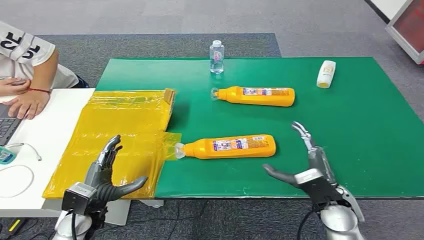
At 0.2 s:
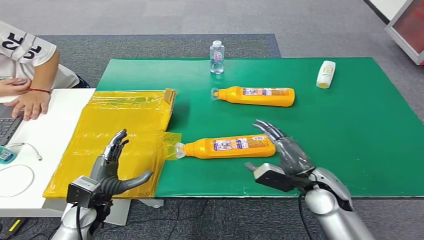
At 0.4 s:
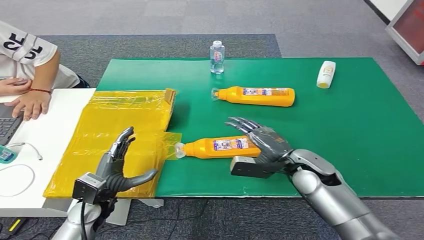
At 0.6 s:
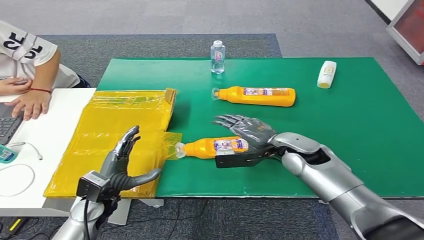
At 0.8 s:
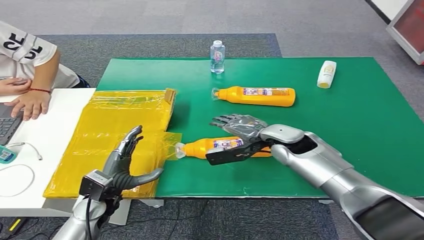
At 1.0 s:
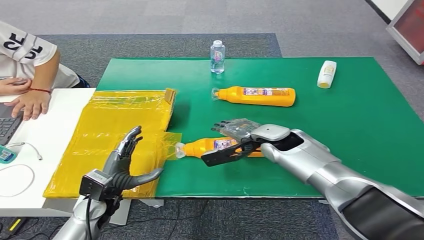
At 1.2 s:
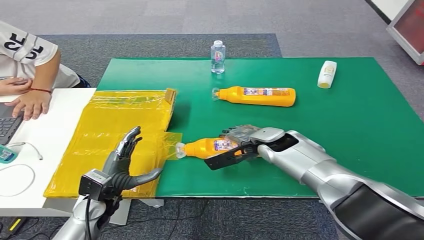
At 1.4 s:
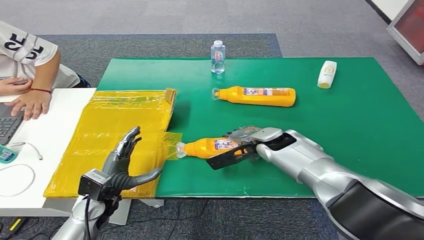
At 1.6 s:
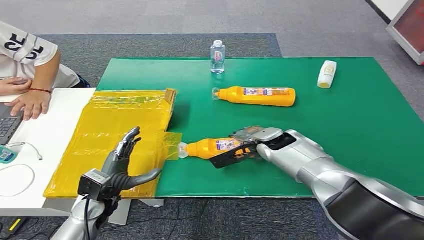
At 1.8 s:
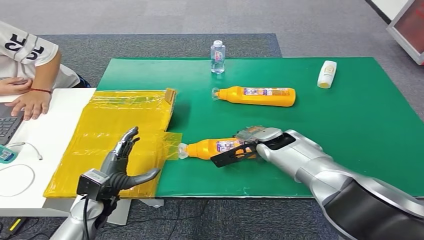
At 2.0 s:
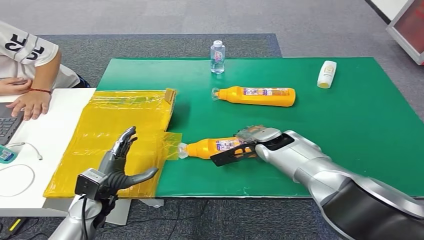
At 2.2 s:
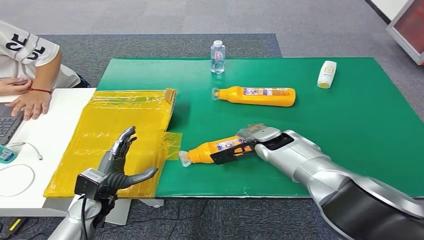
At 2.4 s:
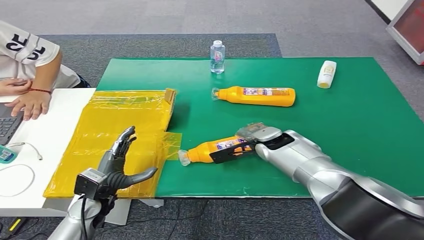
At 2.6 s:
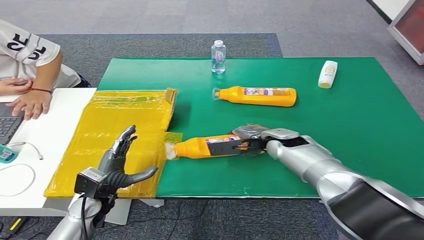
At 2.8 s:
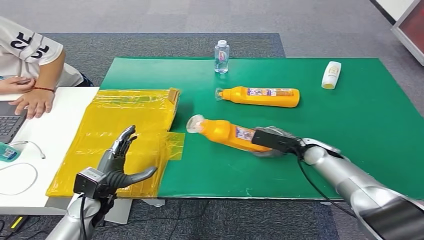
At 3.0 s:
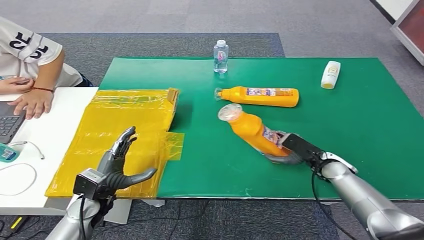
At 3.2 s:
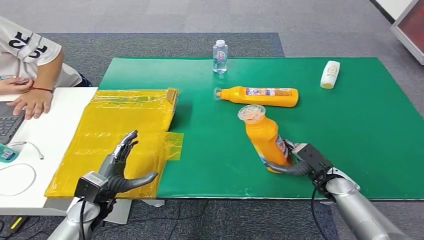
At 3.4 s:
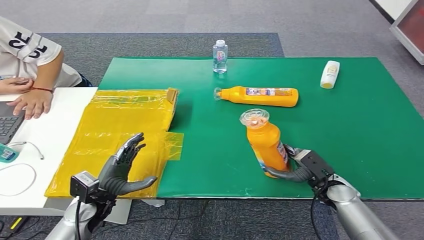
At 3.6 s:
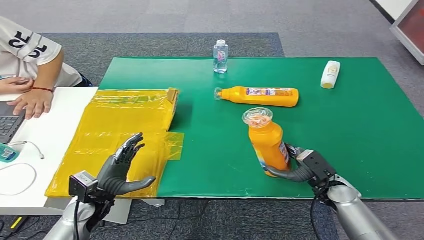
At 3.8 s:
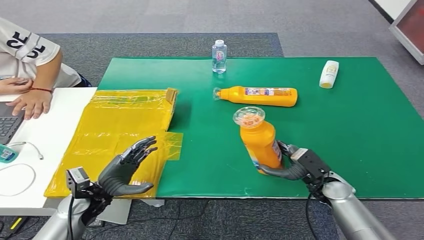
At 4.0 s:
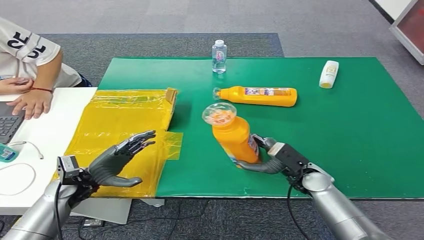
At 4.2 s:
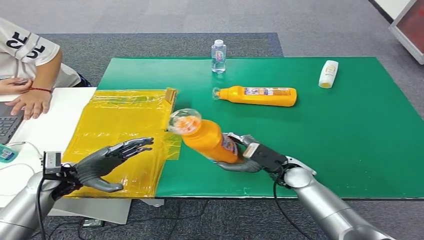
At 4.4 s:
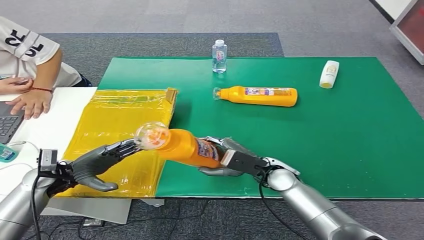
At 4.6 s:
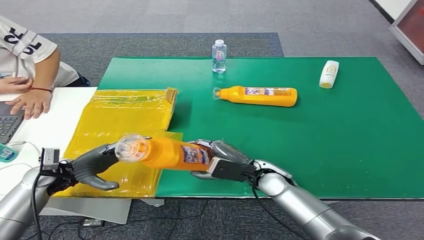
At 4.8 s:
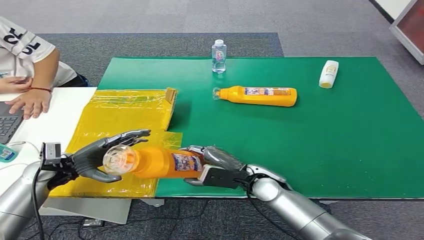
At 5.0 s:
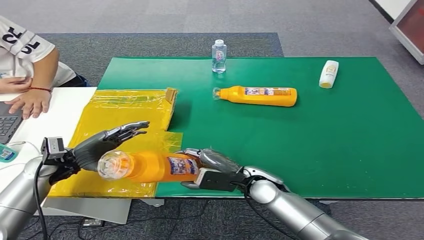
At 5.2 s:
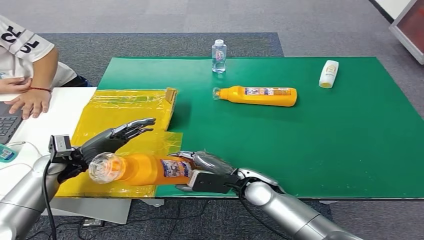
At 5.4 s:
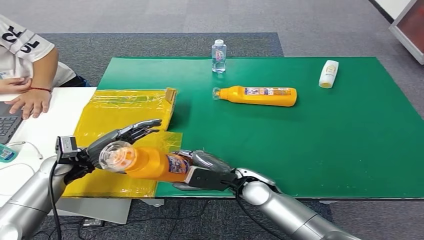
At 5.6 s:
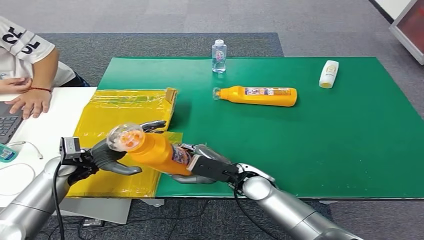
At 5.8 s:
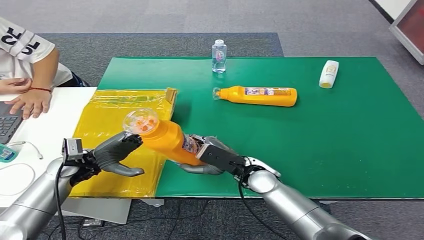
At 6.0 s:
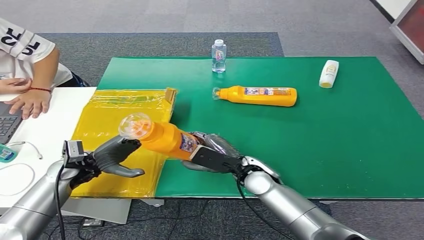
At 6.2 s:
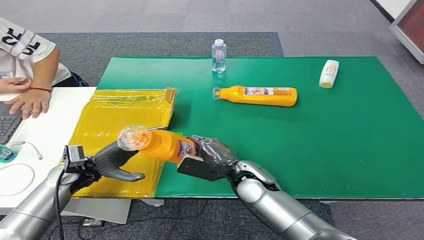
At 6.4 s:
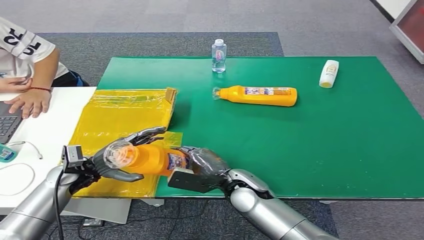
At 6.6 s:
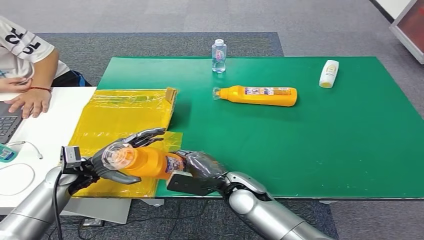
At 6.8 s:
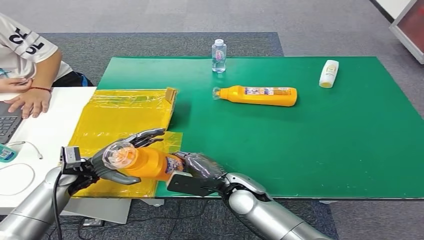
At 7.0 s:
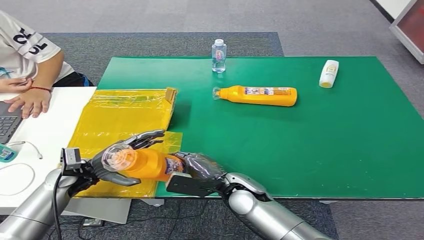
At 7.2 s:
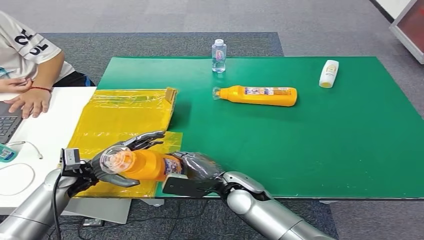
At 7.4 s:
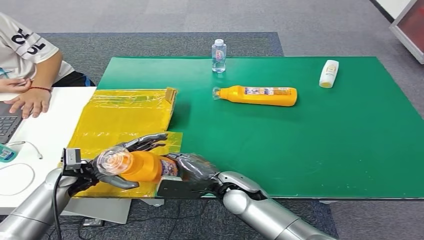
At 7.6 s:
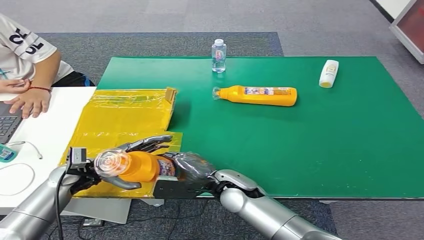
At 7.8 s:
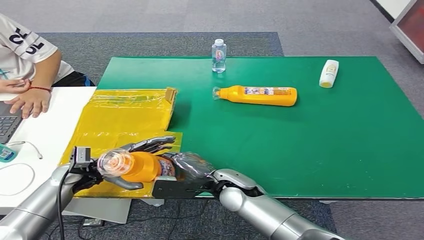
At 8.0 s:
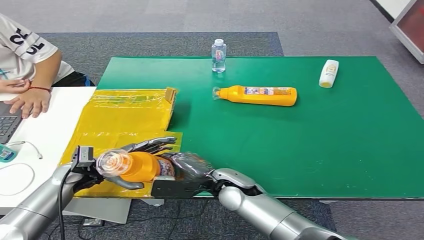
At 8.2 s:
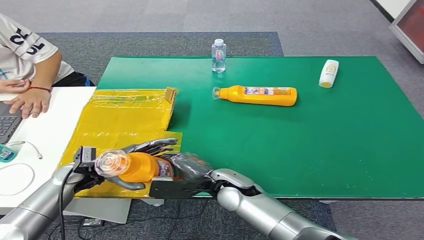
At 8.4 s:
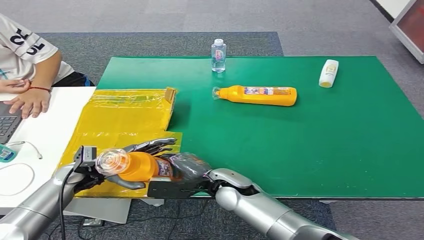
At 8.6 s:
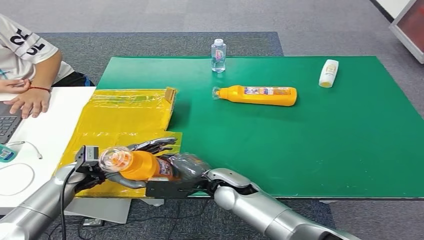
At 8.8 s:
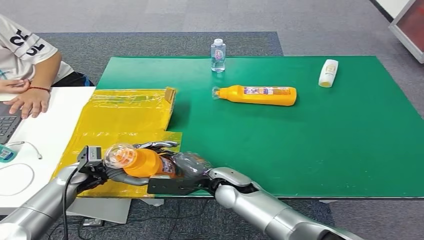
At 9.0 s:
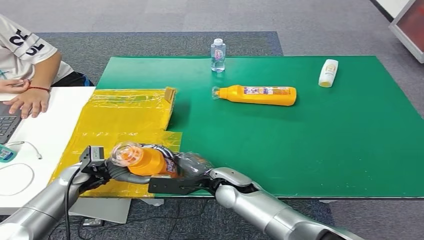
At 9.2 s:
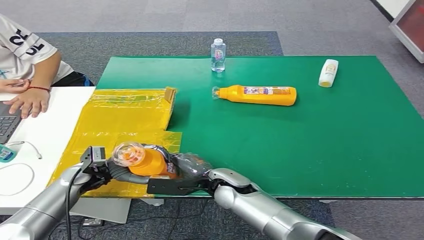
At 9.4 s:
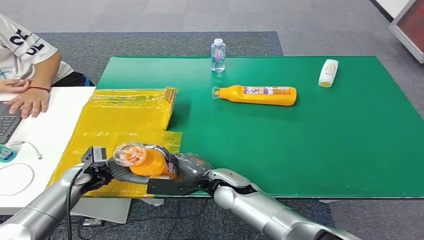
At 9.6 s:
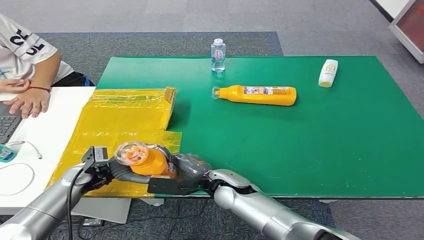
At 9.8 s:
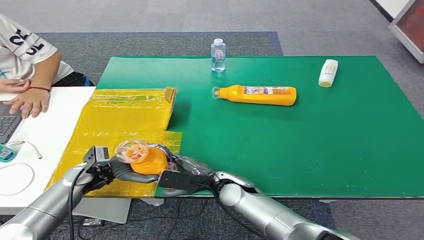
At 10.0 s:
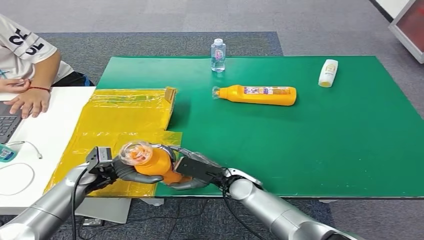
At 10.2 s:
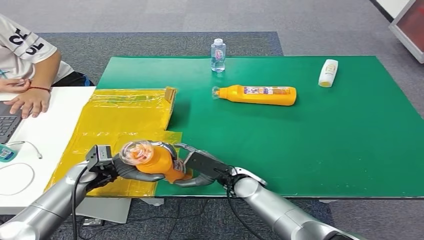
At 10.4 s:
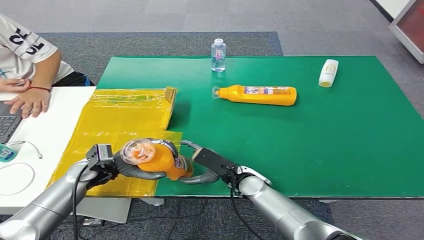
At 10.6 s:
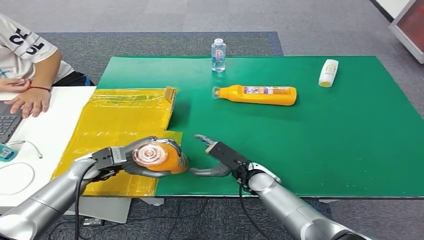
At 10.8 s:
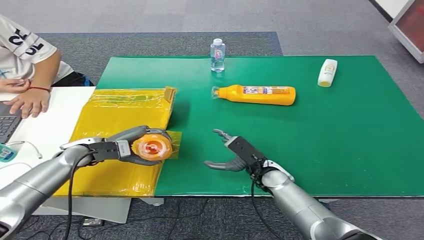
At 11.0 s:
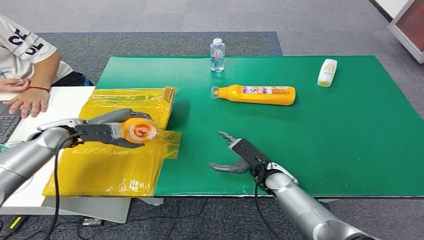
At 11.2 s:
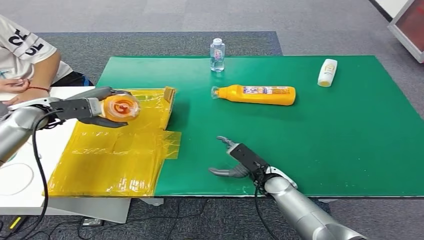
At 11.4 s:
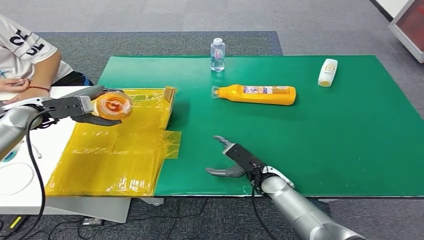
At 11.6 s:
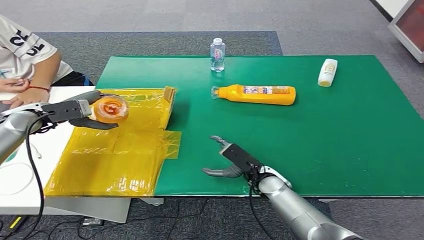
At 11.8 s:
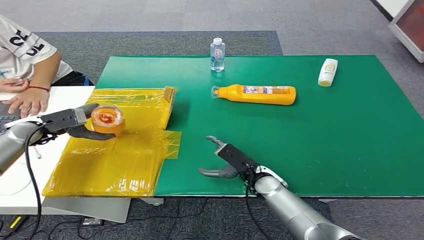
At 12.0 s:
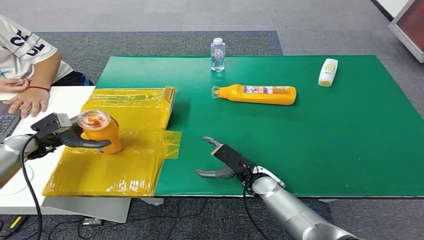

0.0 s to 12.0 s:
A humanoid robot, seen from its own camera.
Step, 0.0 to 3.8 s: Pick up the bottle from the table.
4.4 to 6.0 s: The left hand shifts by approximately 5 cm. Meanwhile the right hand travels to the left by roughly 5 cm.
6.0 to 7.6 s: The right hand shifts by roughly 5 cm.
7.6 to 9.0 s: The hands stay close to where they were, moving slightly.
9.0 to 10.4 s: The right hand travels to the right by roughly 5 cm.
10.4 to 12.0 s: The left hand moves to the left, roughly 15 cm.

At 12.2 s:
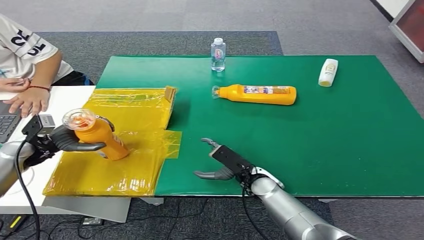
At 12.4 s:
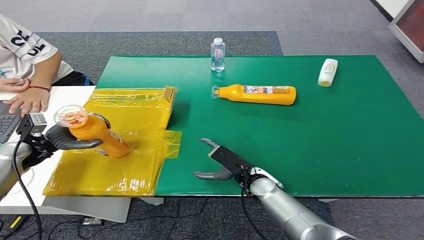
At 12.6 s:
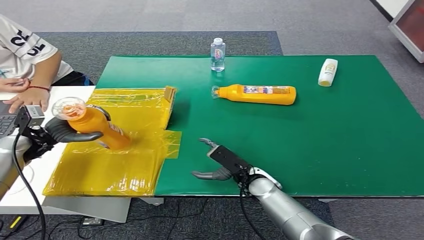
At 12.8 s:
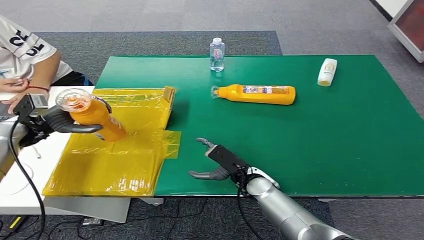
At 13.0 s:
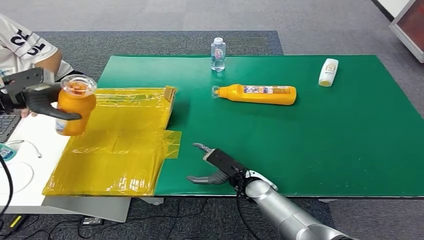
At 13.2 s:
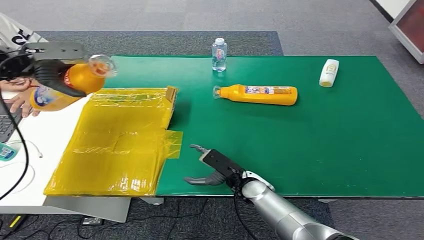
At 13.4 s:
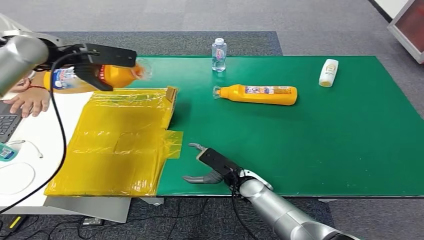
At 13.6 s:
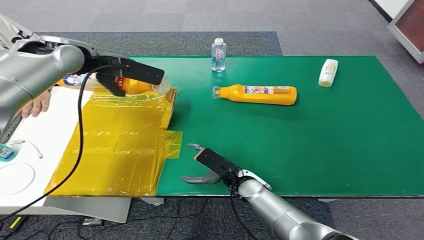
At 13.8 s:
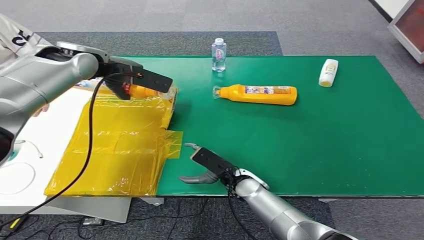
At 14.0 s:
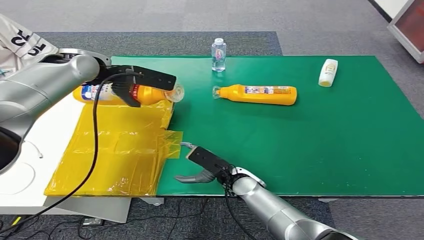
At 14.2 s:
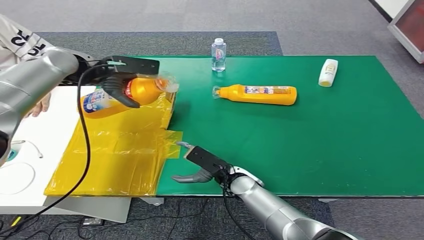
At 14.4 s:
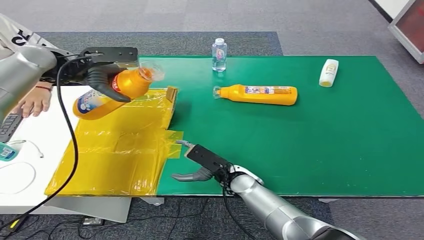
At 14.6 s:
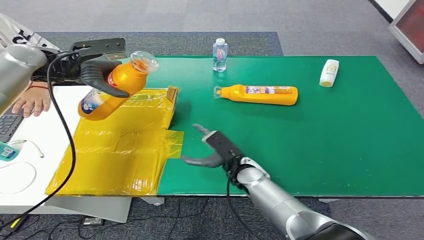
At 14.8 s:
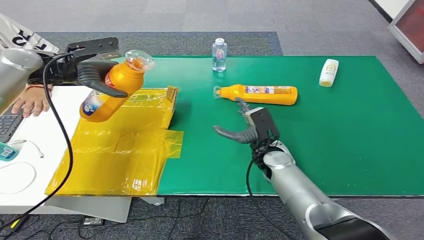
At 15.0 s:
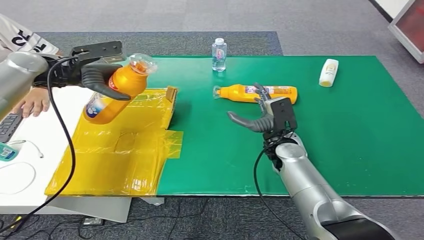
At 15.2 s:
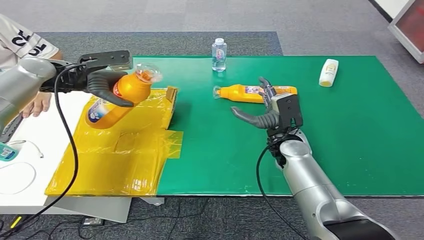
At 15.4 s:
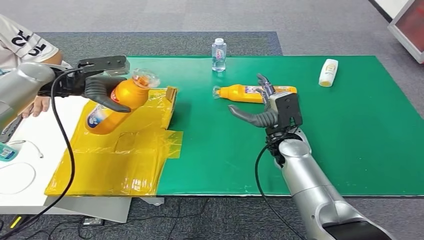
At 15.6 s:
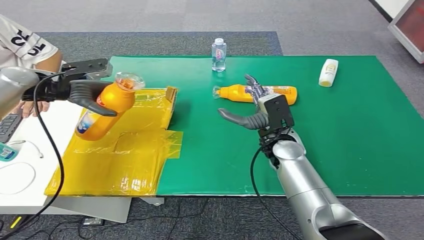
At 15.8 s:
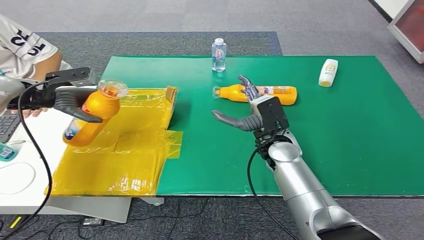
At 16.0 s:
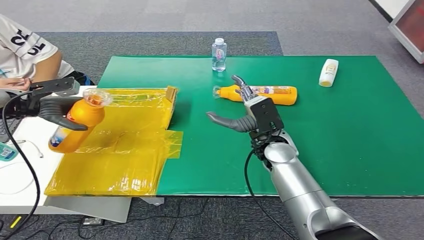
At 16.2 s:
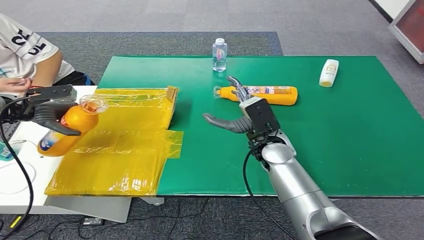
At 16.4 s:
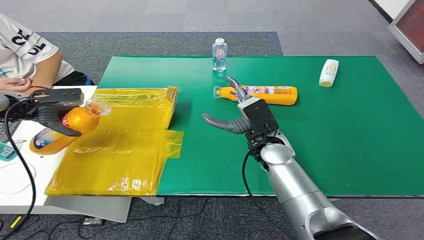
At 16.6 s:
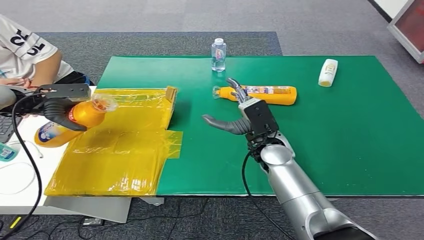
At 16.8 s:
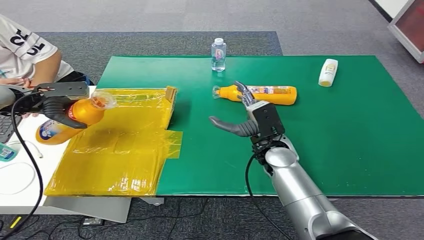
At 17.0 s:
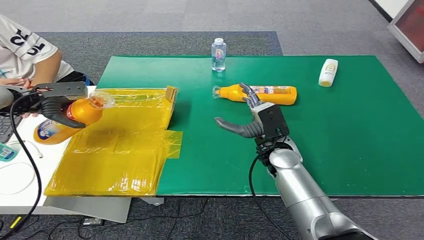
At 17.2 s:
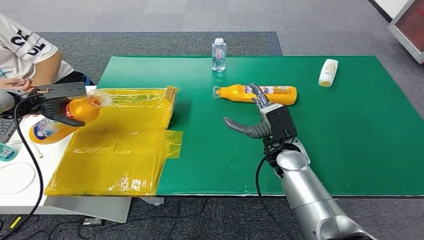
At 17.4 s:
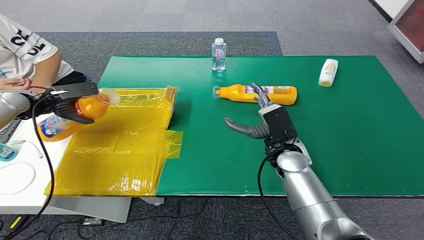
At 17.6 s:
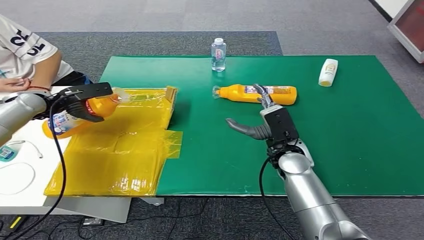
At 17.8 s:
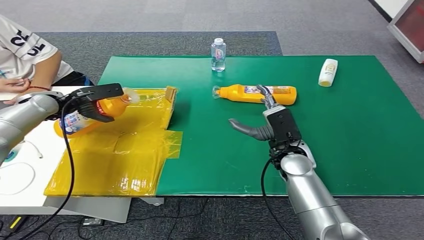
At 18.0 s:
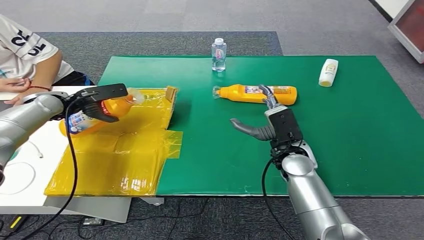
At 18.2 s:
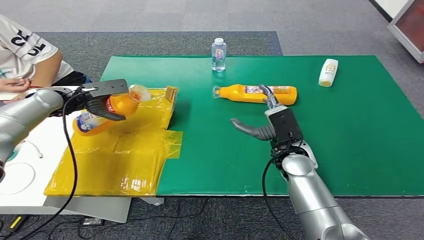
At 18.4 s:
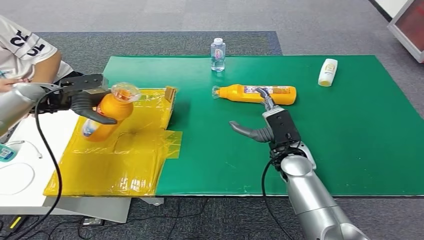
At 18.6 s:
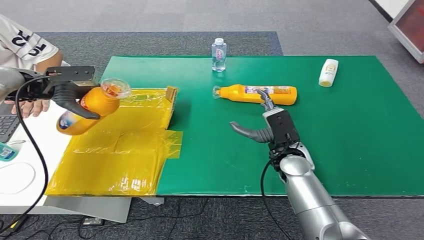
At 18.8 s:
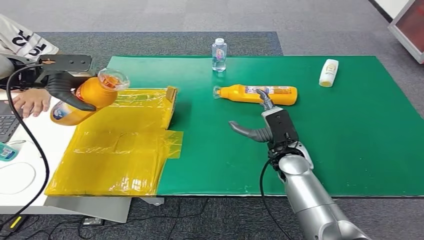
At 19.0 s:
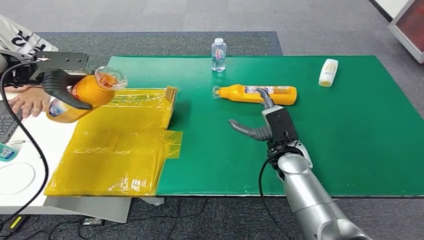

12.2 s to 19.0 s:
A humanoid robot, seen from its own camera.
16.2 to 17.6 s: The left hand goes roughly 5 cm to the right.
17.6 to 19.0 s: The left hand goes some 15 cm upward.
